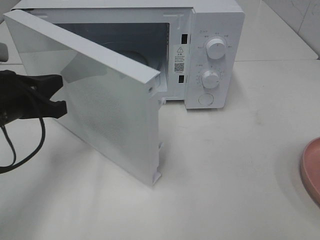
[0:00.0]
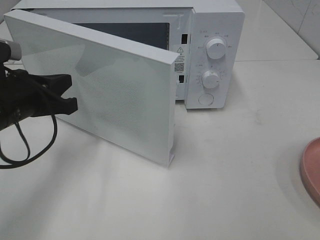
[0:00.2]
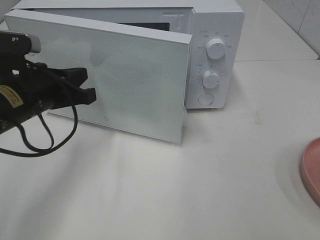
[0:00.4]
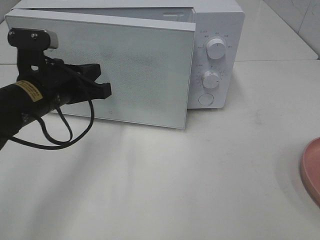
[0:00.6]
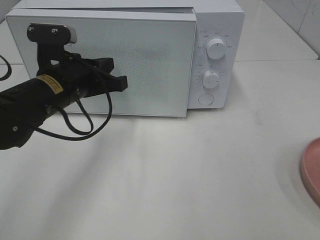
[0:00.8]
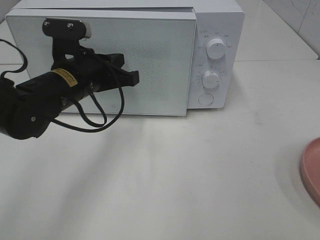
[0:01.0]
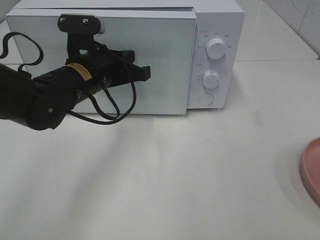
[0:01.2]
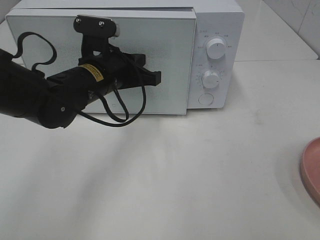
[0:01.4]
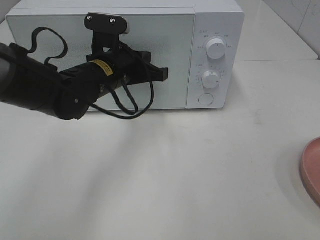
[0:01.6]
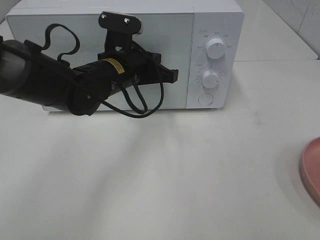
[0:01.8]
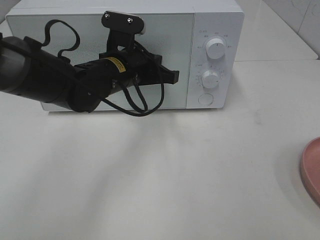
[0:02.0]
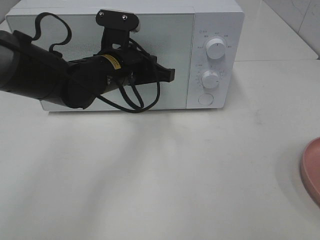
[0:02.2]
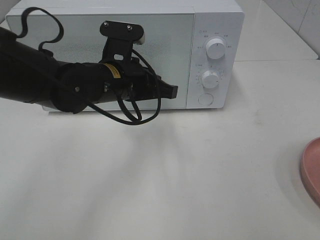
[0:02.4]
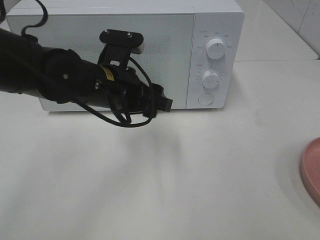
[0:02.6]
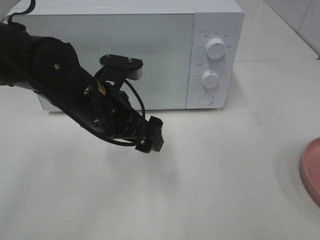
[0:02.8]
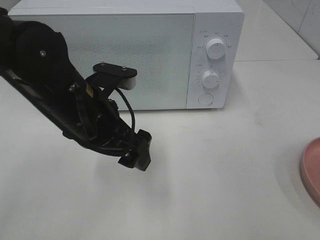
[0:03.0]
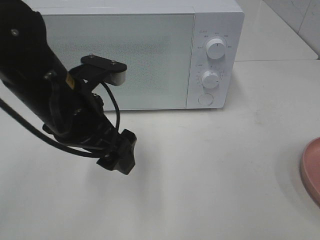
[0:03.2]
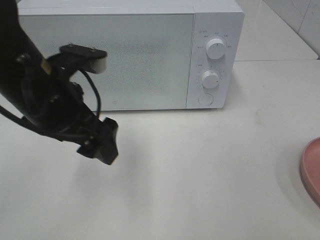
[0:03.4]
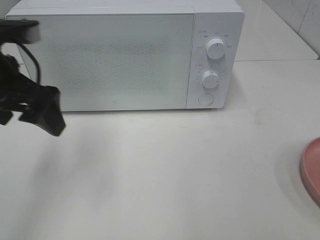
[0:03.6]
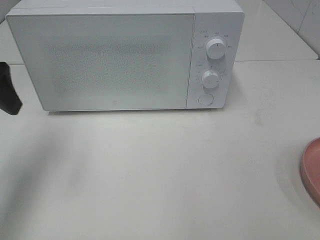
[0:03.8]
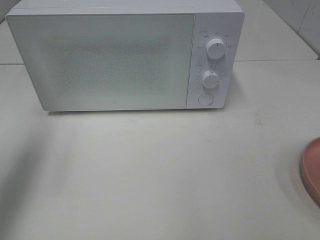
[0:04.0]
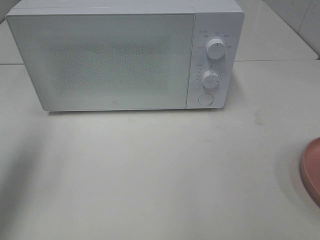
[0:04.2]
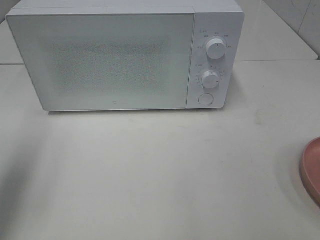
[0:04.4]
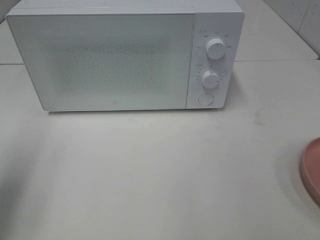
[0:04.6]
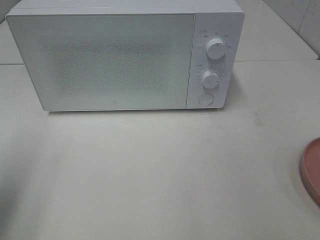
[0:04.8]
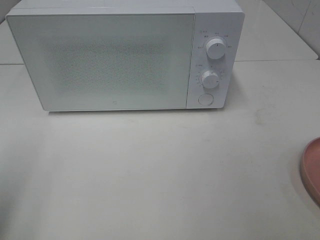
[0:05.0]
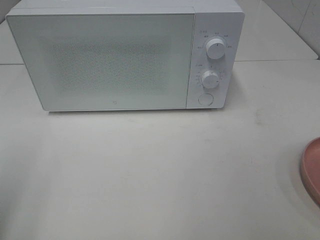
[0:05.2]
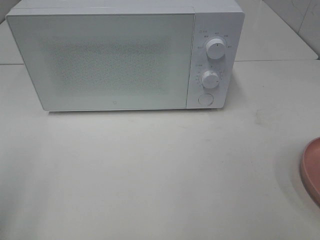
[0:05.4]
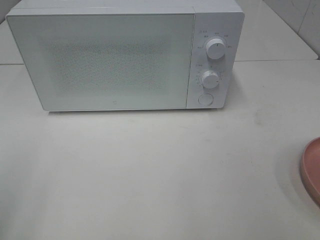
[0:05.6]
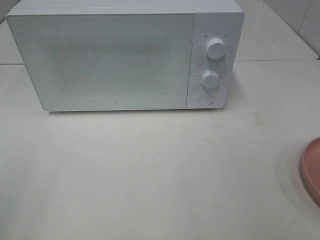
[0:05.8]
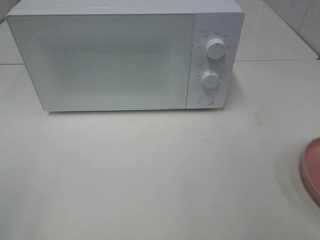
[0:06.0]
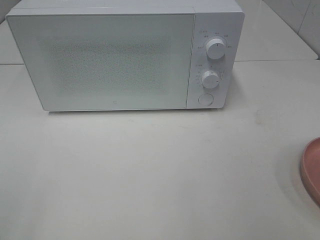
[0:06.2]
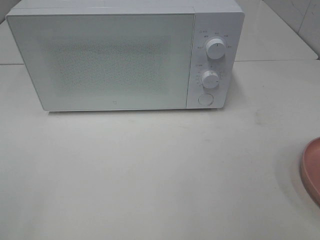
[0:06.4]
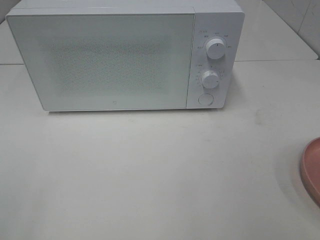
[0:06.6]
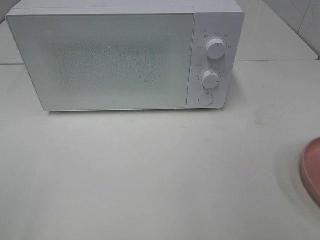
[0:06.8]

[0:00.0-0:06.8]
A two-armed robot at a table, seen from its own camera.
Task of the whole recording: Heat the burger.
Step, 0:00.0 to 0:02.2: Left hand: close the microwave door.
0:00.0 to 0:01.4: The left gripper goes about 15 cm to the right and forward.
0:01.4 to 0:02.8: The left gripper shifts about 5 cm backward, and opens.
0:02.8 to 0:04.0: The left gripper is displaced to the left and upward by about 25 cm.
0:04.0 to 0:05.4: The left gripper travels backward by roughly 15 cm.

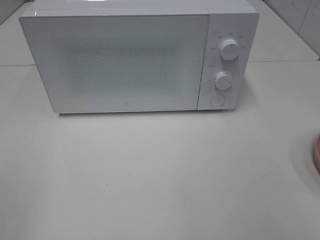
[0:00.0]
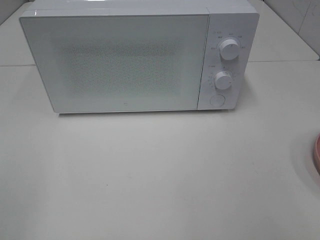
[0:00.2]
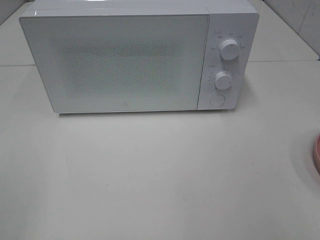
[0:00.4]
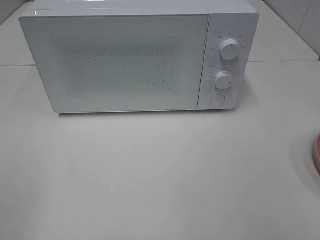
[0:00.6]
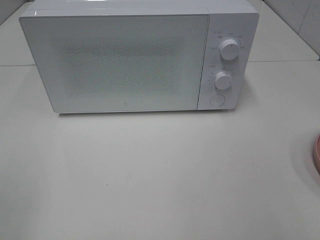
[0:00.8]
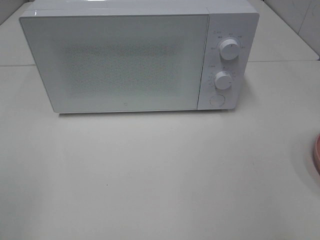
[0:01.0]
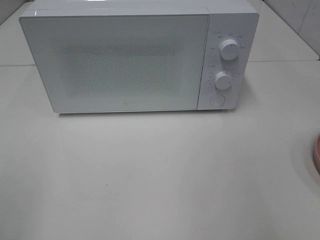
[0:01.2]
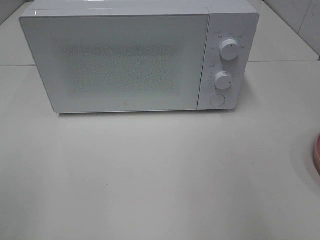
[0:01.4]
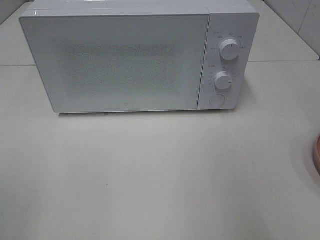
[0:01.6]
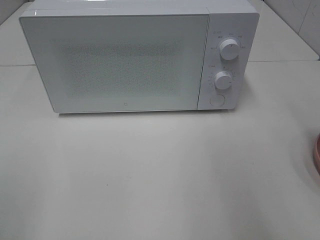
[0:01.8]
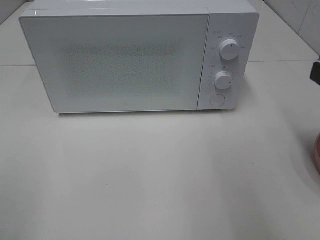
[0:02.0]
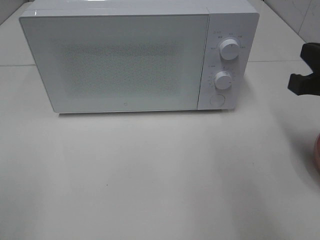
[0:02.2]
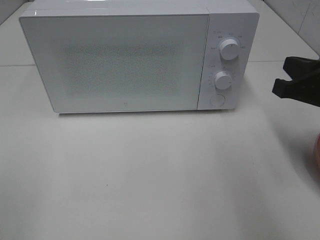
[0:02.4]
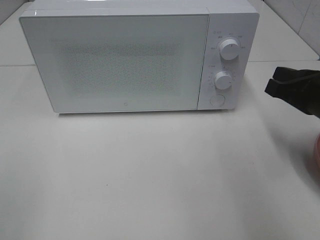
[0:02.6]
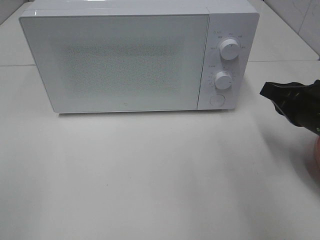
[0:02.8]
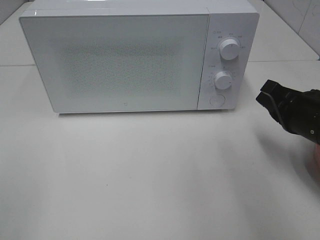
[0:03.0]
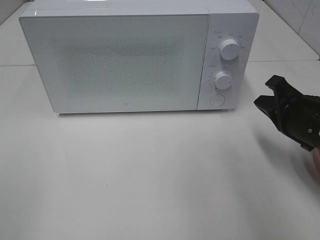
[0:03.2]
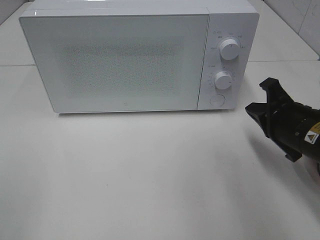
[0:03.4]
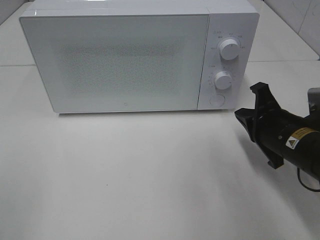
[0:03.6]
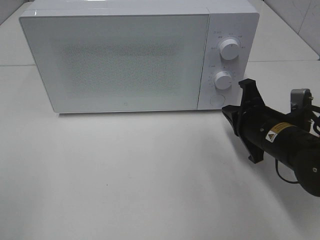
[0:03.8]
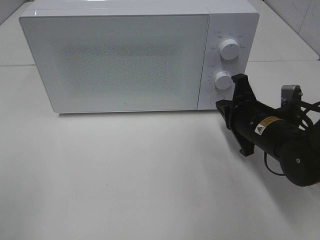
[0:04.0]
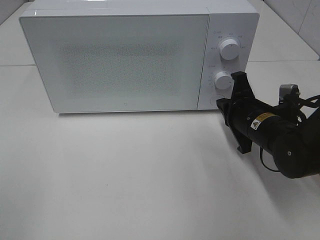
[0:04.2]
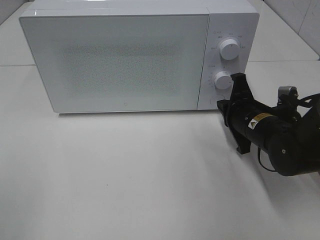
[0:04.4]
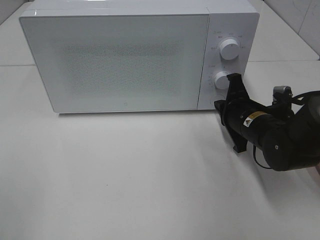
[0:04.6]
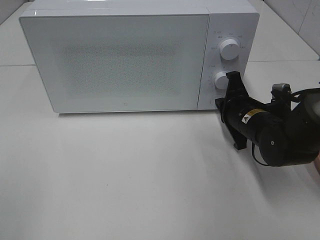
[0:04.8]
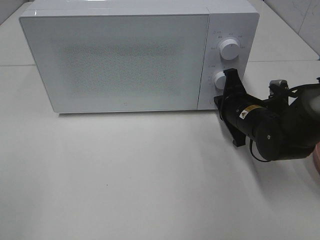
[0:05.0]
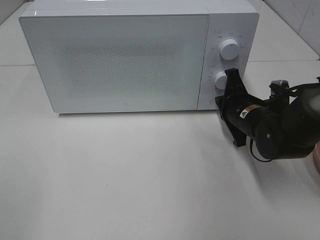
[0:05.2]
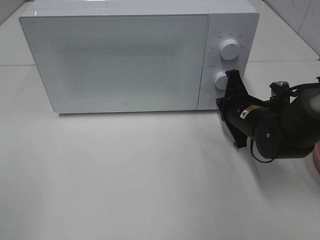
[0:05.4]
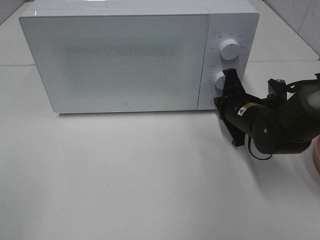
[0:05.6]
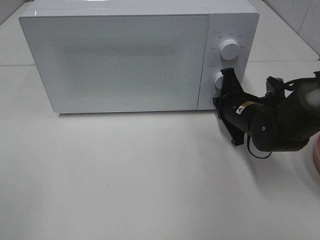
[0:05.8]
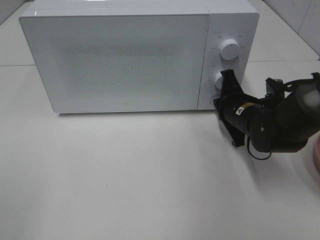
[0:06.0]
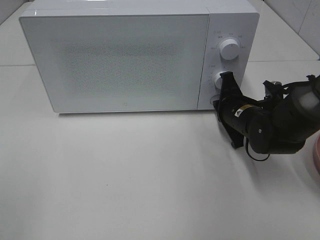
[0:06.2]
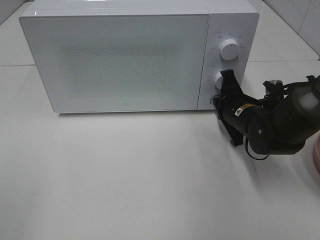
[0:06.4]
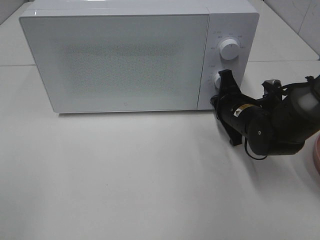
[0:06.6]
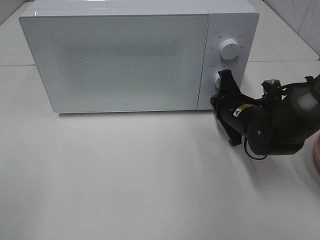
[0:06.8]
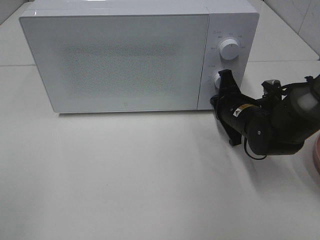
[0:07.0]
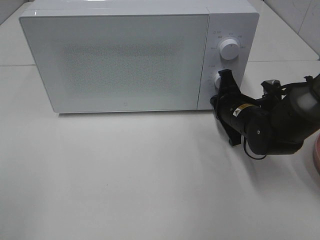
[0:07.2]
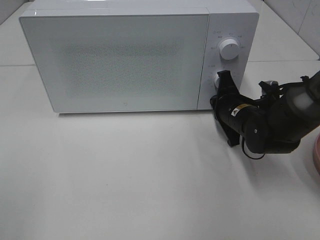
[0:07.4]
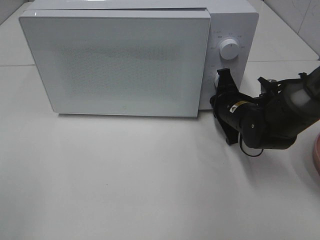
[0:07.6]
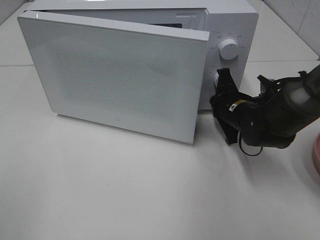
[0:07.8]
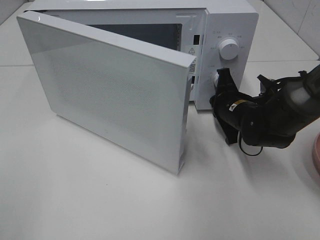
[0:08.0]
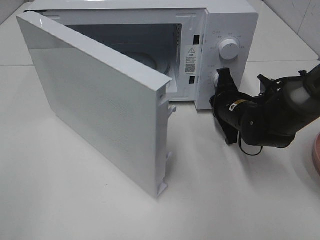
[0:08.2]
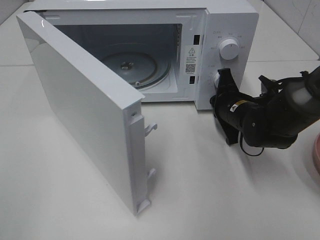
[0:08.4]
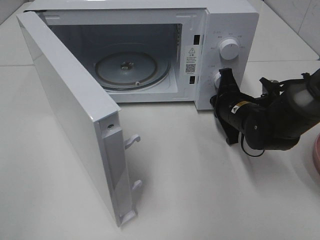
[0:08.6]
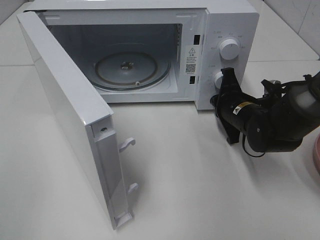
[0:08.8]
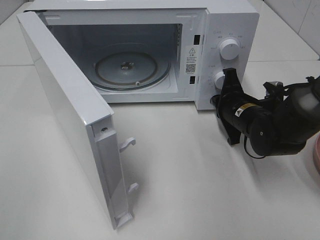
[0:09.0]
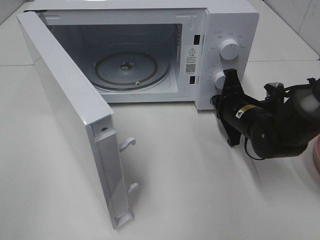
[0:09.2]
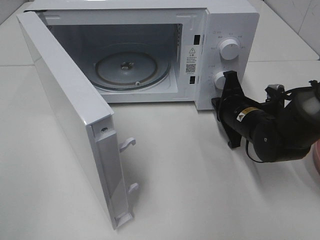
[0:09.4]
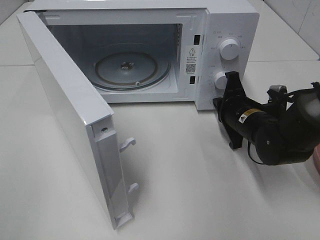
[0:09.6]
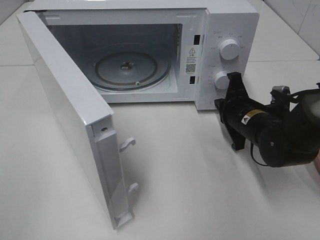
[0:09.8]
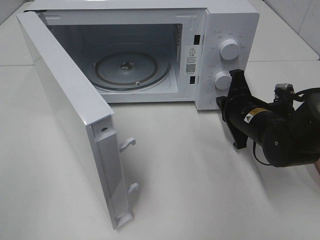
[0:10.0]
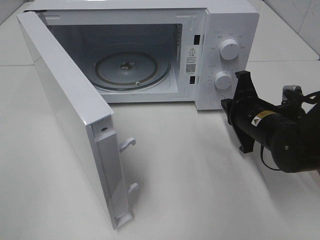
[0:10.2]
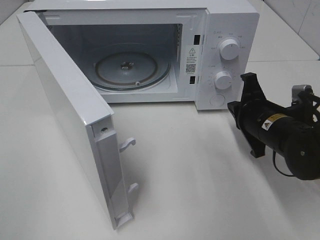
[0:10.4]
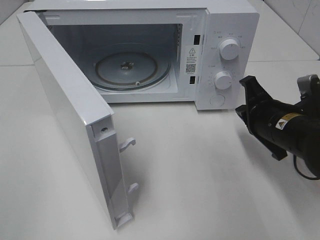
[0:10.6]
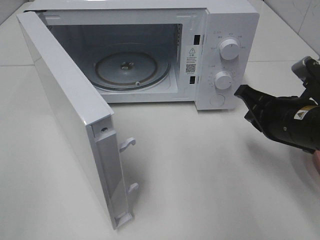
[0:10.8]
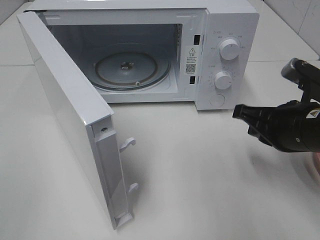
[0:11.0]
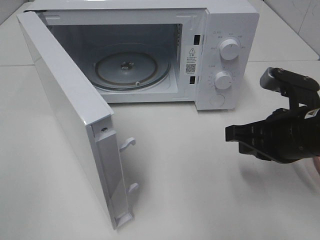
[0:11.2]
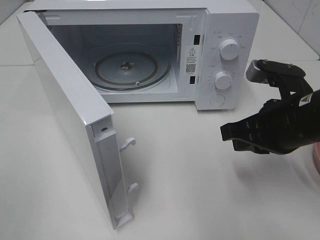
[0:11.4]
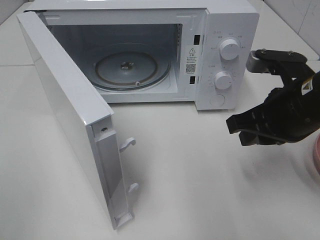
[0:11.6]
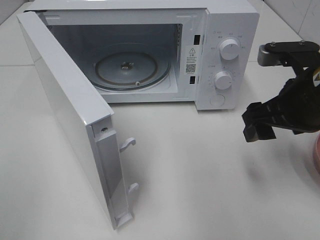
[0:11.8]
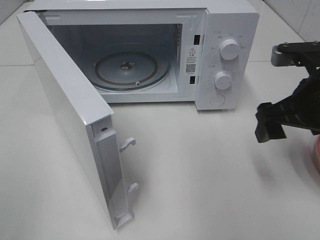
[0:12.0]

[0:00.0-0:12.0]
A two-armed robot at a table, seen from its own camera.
Task of the whole recording: Heat the burger.
Step, 0:00.0 to 0:09.4: Right hand: press the switch.
0:01.6 to 0:03.0: The right gripper heads downward and forward, covering some 20 cm.
0:03.0 to 0:04.4: The right gripper is displaced forward, to the left and downward by some 10 cm.
0:04.4 to 0:07.6: The grippers stay close to where they were, moving slightly.
0:09.0 to 0:10.4: The right gripper heads backward, covering some 5 cm.
0:10.4 to 0:12.0: The right gripper shifts some 10 cm upward, and opens its fingers.

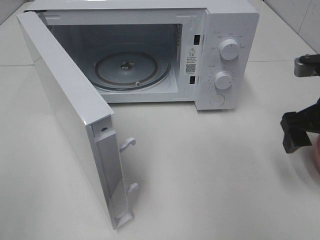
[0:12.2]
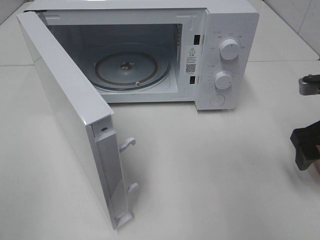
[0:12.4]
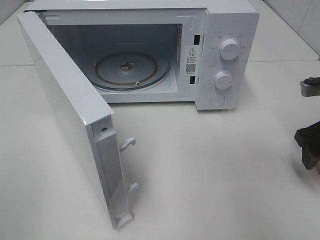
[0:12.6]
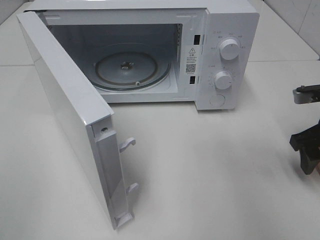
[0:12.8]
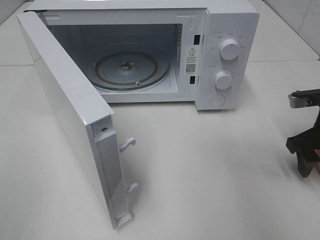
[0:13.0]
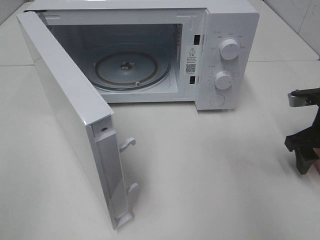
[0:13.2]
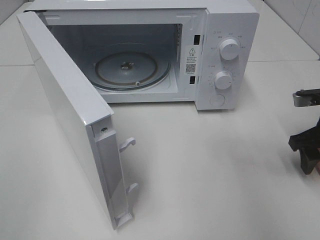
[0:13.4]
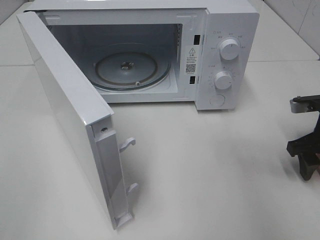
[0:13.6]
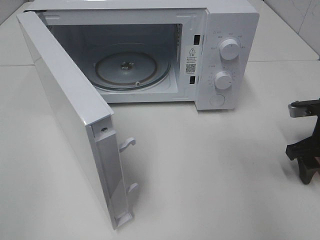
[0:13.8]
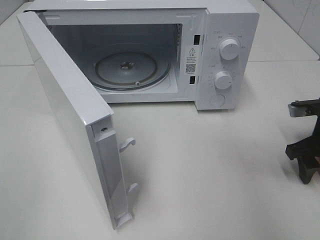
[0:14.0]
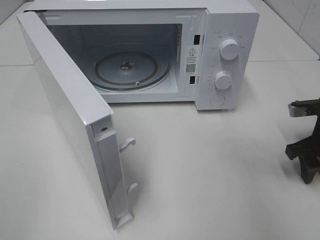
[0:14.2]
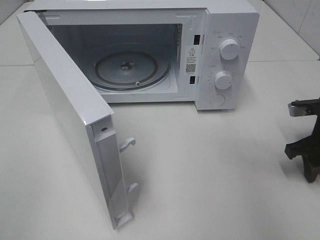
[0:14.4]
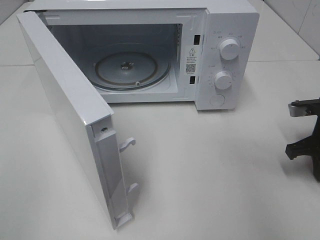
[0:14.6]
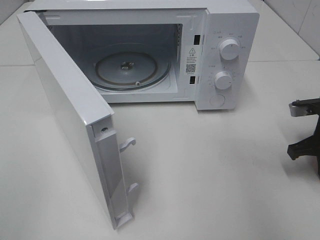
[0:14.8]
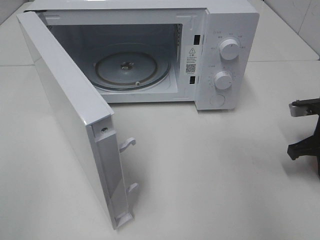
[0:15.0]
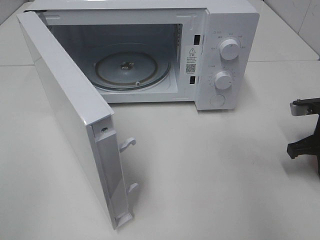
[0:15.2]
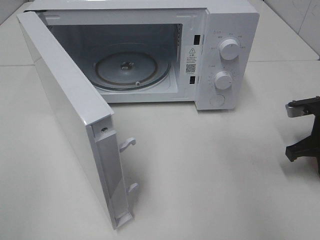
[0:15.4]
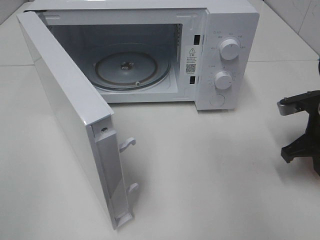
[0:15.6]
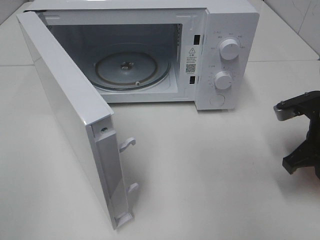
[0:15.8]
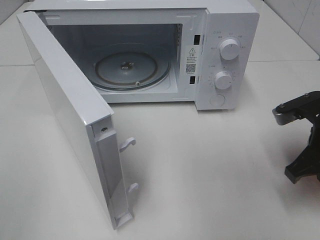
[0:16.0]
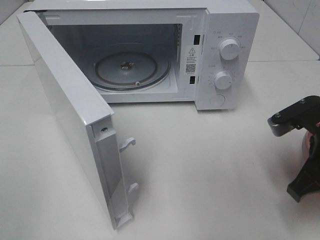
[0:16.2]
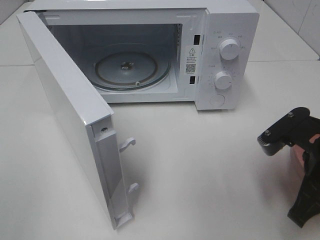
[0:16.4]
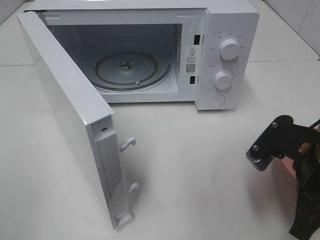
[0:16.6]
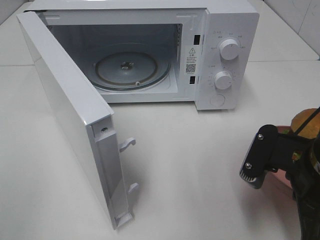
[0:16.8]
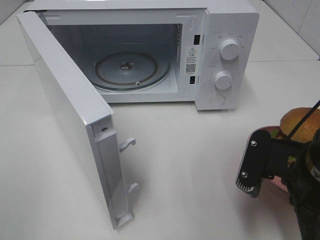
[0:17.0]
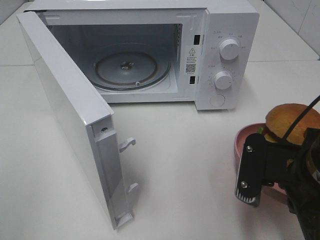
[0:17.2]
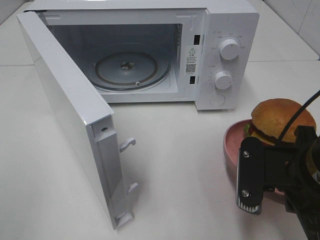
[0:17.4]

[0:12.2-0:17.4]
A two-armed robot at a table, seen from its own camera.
Task of the whole recording: Heat the burger.
Step, 0:12.2 to 0:14.6: Right hand: grab the plate with the hamburger.
0:12.2 to 0:14.0: The right gripper heads downward, covering approximately 10 cm.
0:14.0 to 0:15.6: The right gripper closes its fingers.
0:15.6 to 0:17.4: The right gripper goes approximately 20 cm backward, to the left and upward.
